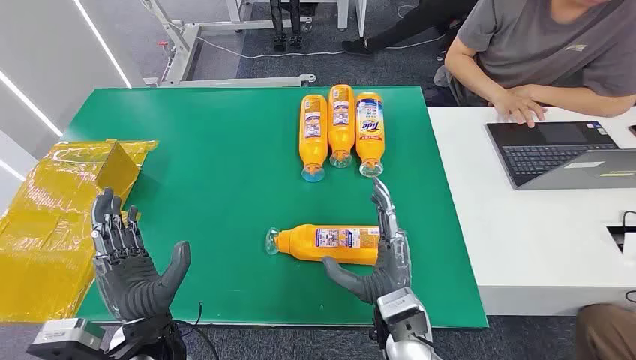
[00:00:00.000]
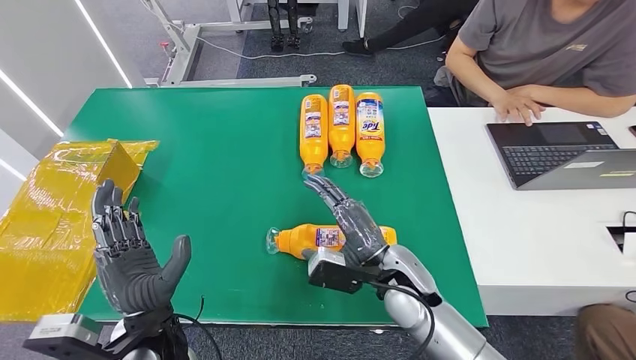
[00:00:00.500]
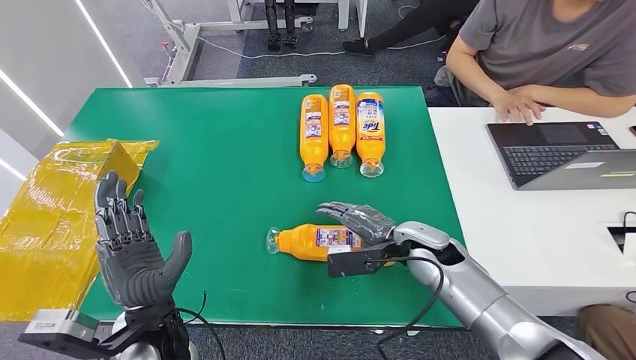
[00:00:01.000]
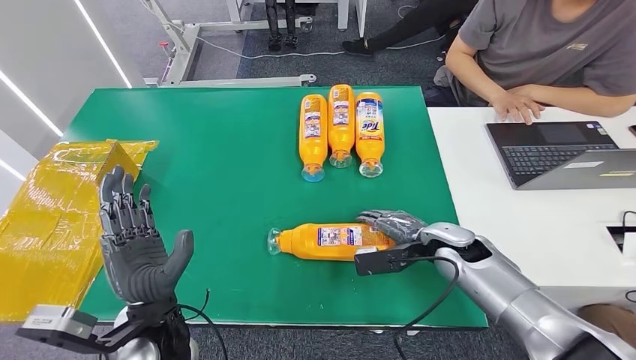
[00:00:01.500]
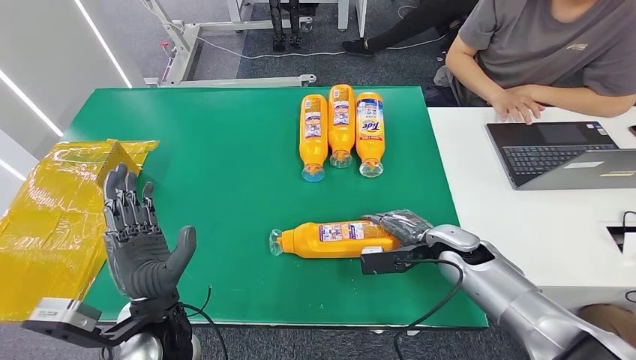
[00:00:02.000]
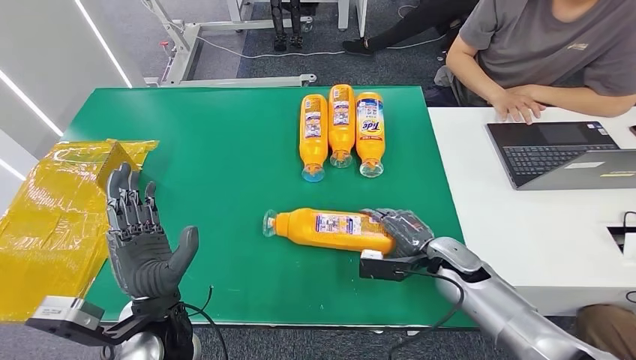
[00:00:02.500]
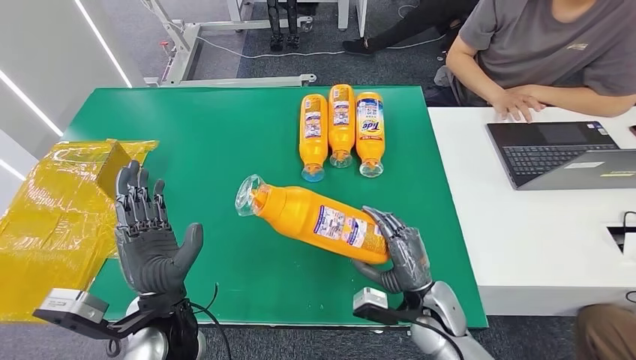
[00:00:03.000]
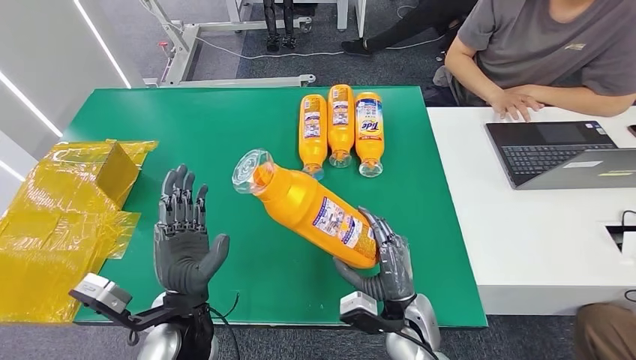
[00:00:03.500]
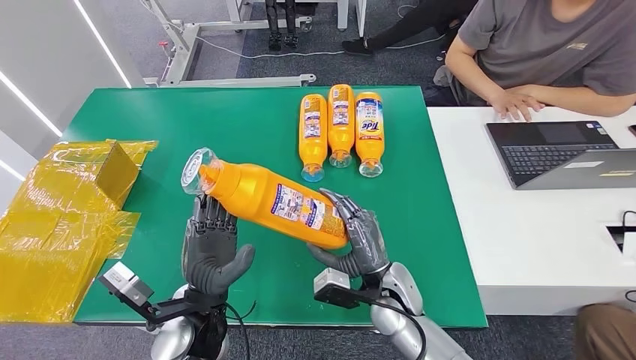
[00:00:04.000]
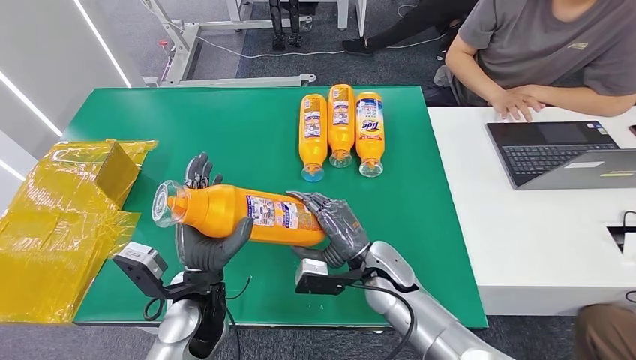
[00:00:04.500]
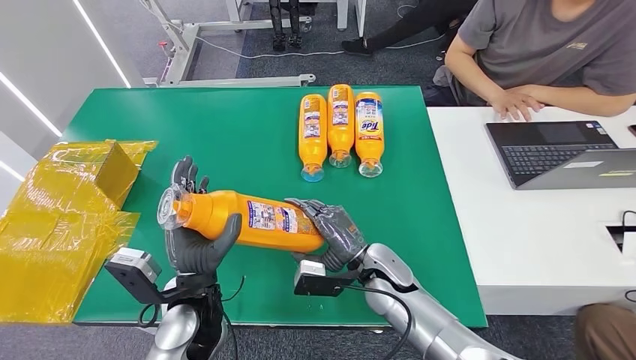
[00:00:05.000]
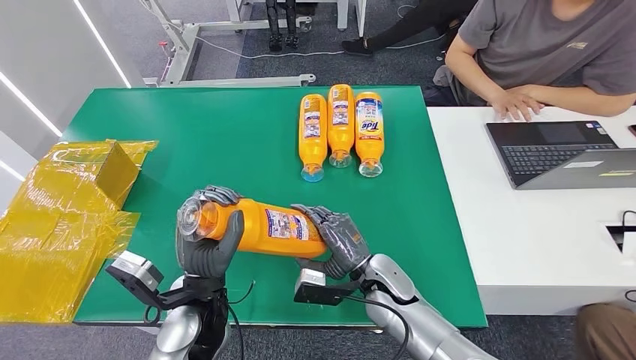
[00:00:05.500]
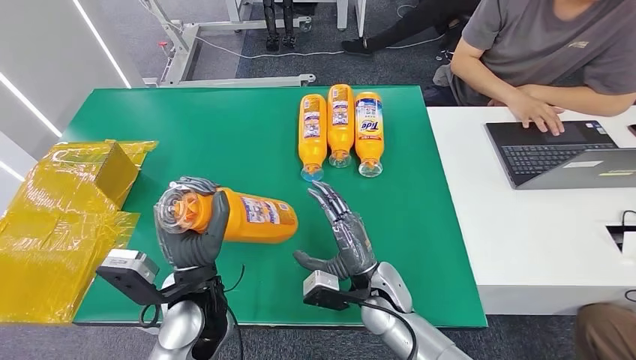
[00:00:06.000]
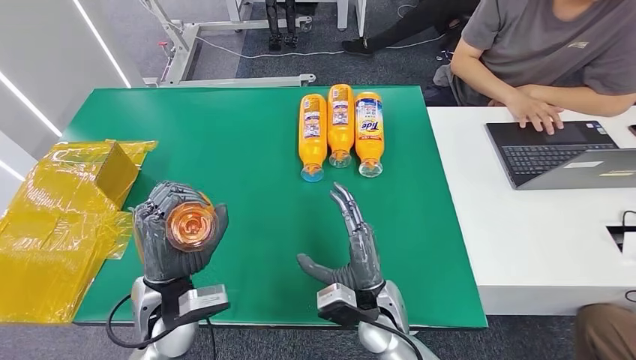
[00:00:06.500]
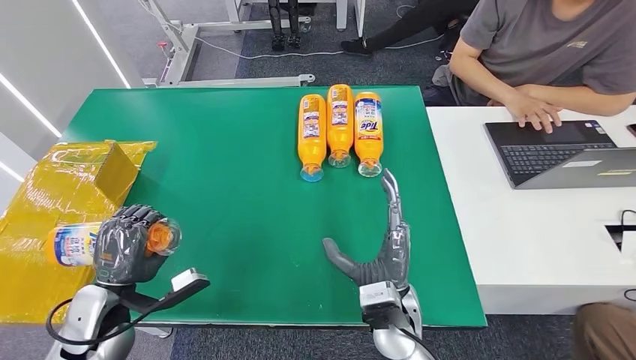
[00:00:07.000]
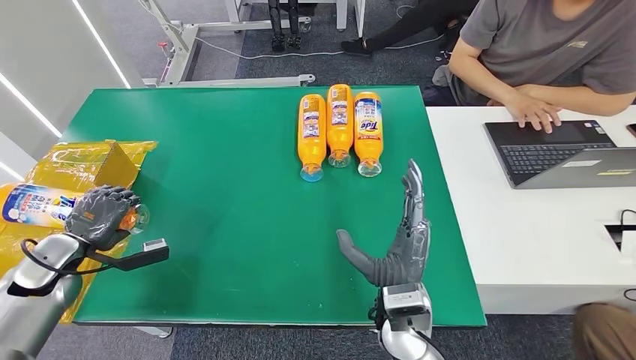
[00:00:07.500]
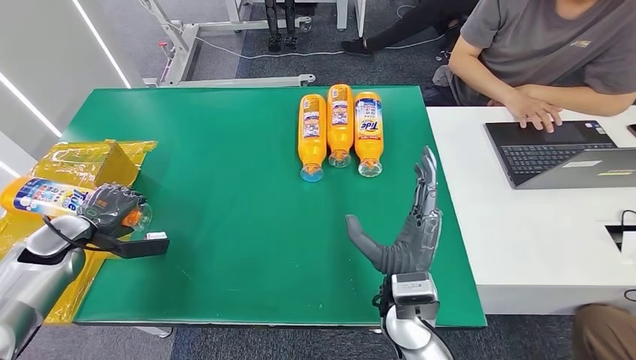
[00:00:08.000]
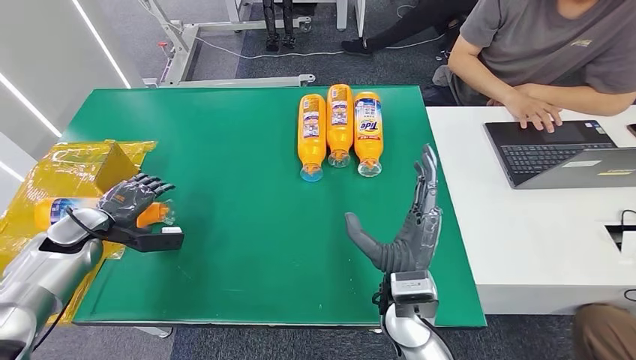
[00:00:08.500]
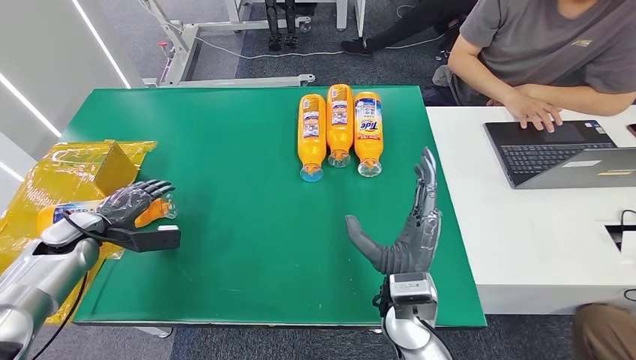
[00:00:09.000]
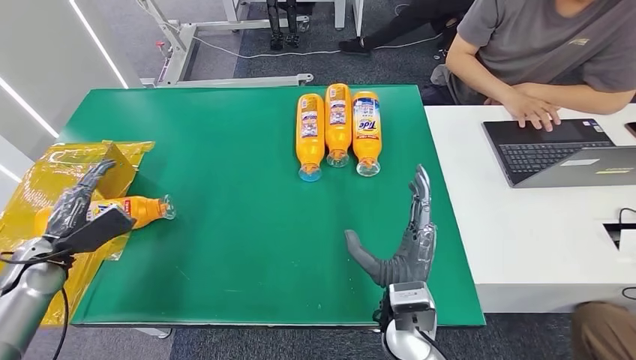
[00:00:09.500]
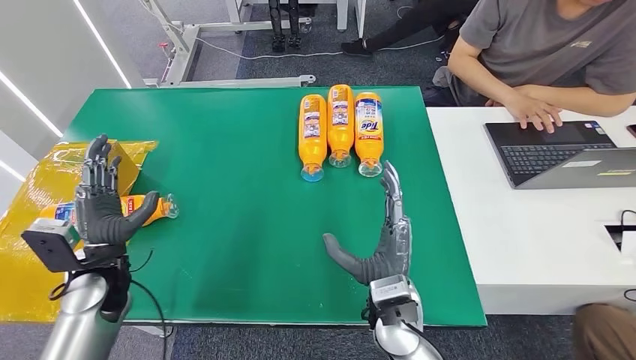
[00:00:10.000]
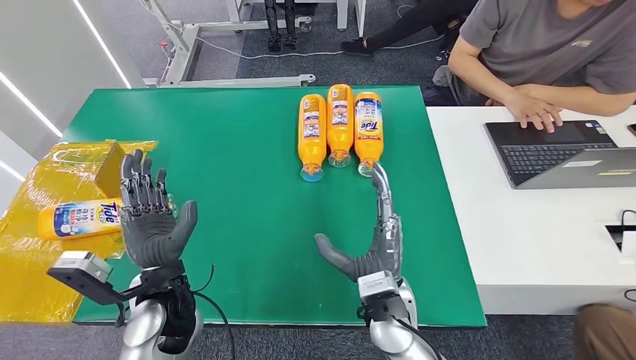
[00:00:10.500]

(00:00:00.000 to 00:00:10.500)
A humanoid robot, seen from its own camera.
Step, 00:00:00.000 - 00:00:04.000: Pick up the bottle from the table.
Step, 00:00:04.500 - 00:00:10.500: Turn the bottle to the front side.
00:00:04.000 - 00:00:06.500: The left hand moves roughly 5 cm.
00:00:06.500 - 00:00:08.500: The left hand travels to the left and forward by some 30 cm, while the right hand goes some 10 cm upward.
00:00:08.500 - 00:00:10.500: The left hand moves to the right and backward, approximately 30 cm.

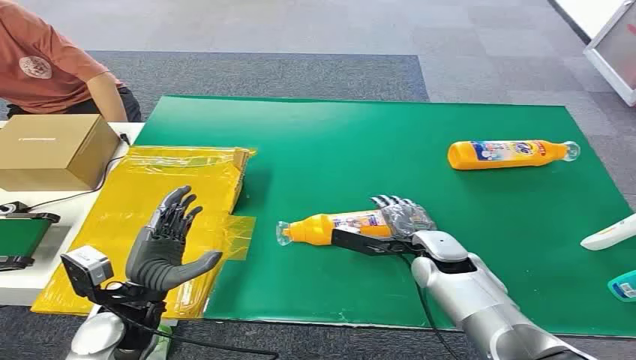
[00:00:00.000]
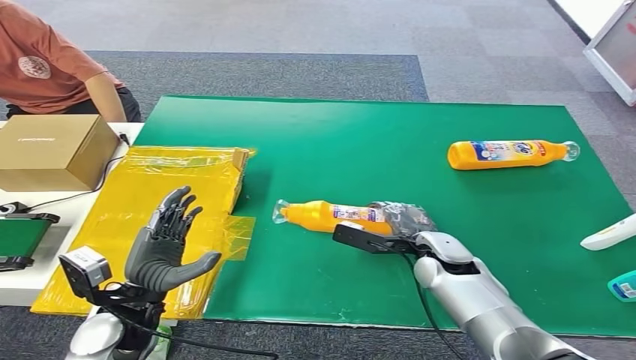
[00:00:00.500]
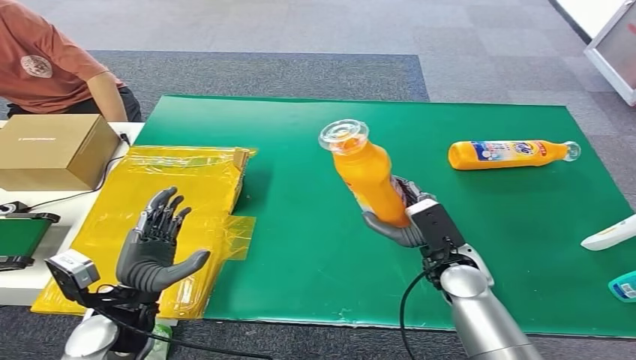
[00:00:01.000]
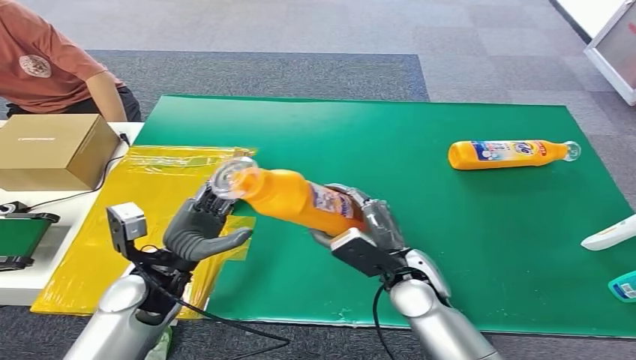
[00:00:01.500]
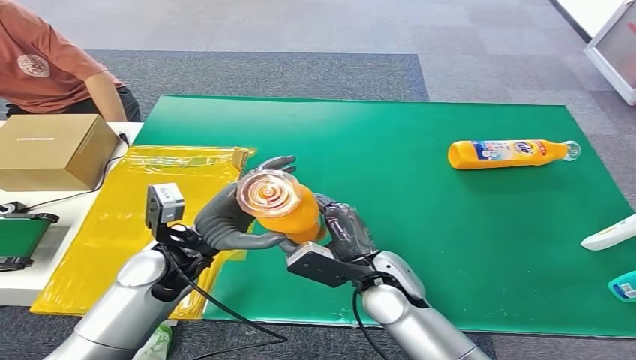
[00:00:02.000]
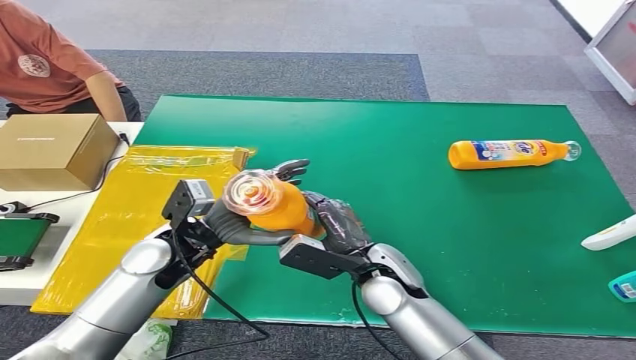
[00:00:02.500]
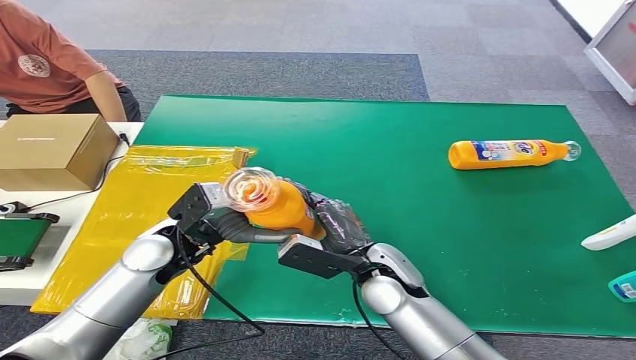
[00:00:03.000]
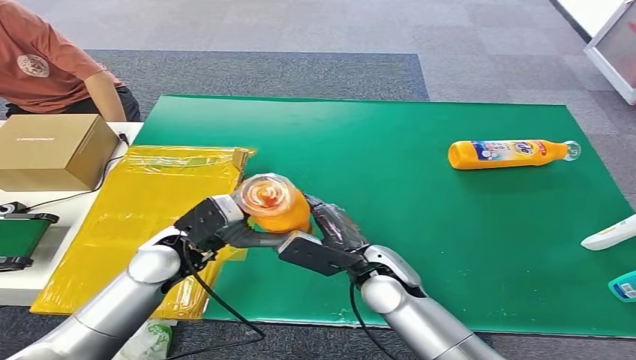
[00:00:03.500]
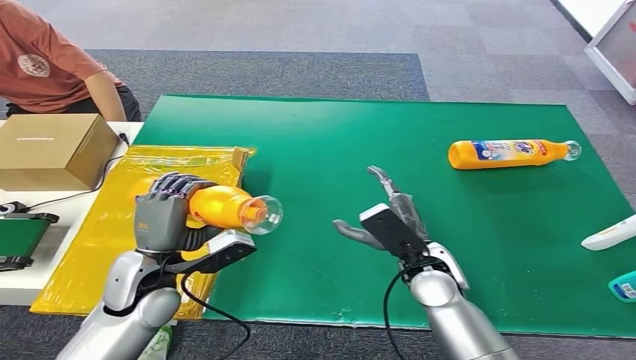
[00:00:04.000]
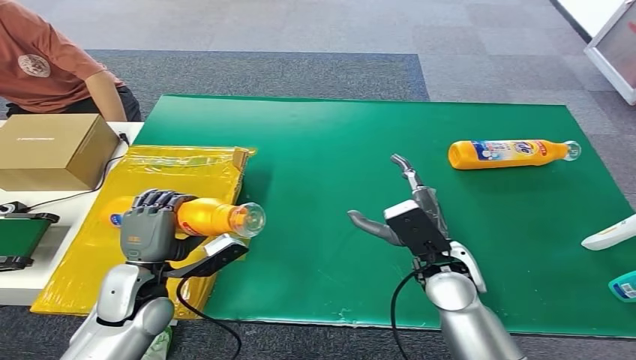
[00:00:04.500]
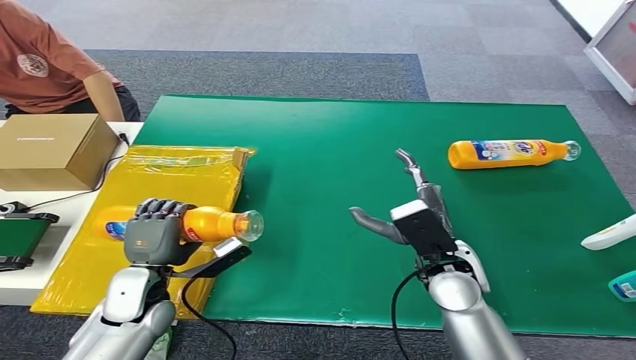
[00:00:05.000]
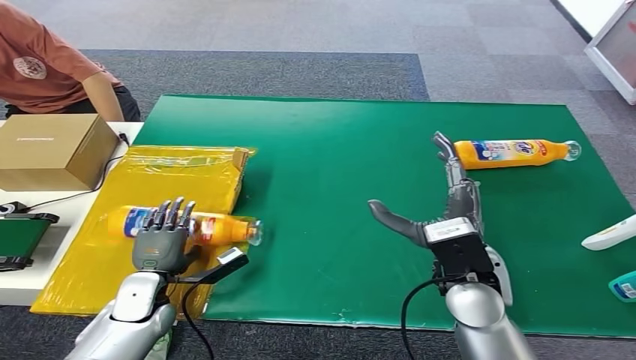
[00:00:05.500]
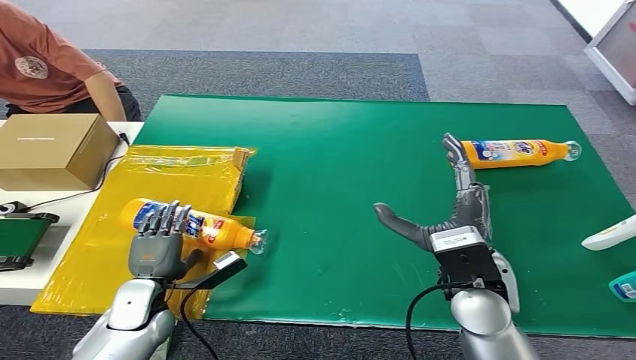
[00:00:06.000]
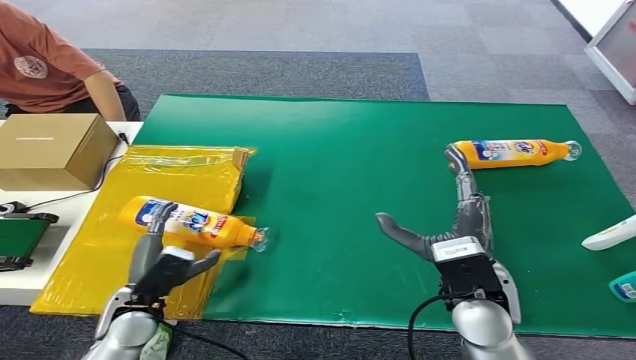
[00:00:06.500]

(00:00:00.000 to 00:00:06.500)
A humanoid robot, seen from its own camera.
Step, 00:00:00.000 - 00:00:01.000: Pick up the bottle from the table.
Step, 00:00:01.500 - 00:00:06.500: Turn the bottle to the front side.
00:00:04.500 - 00:00:06.500: The right hand ends up roughly 5 cm from where it was, while the left hand heads downward, covering some 5 cm.
